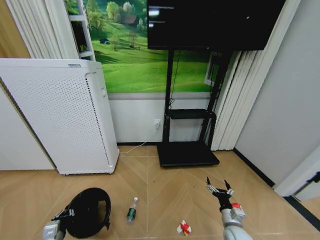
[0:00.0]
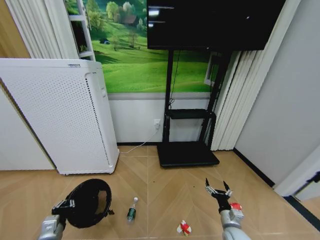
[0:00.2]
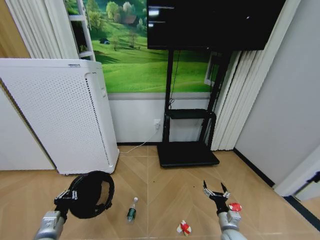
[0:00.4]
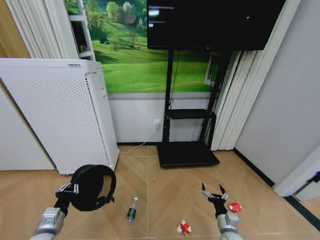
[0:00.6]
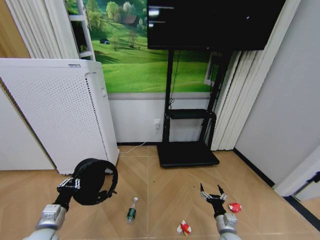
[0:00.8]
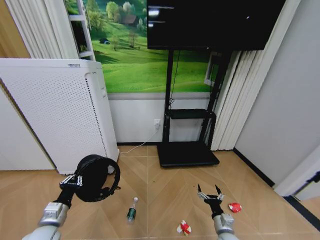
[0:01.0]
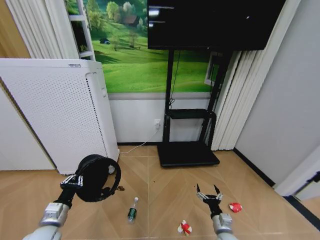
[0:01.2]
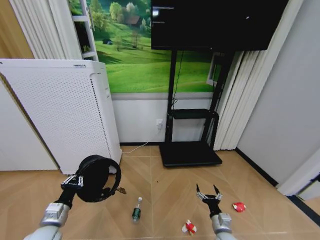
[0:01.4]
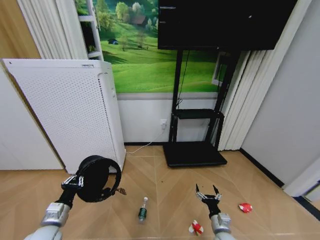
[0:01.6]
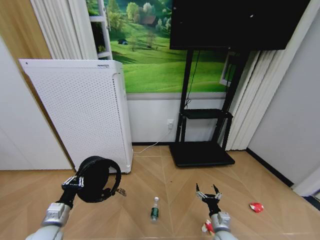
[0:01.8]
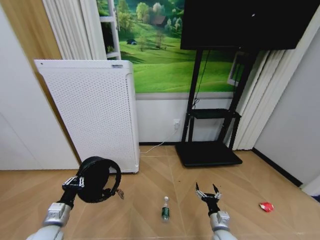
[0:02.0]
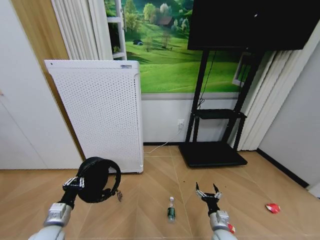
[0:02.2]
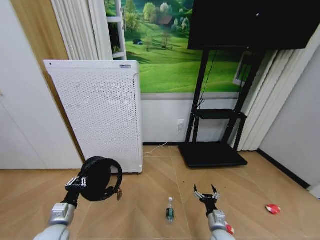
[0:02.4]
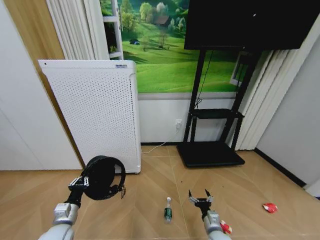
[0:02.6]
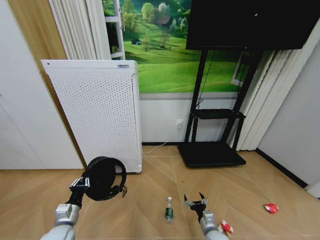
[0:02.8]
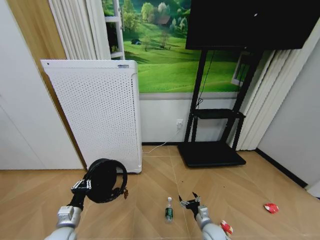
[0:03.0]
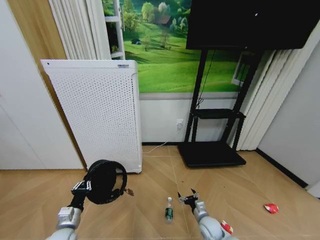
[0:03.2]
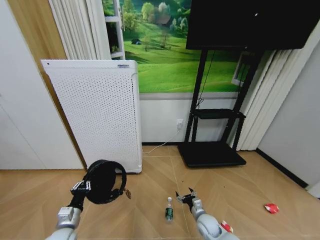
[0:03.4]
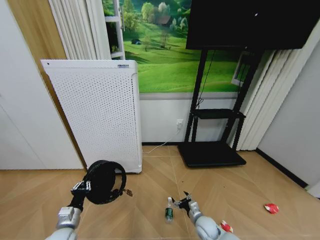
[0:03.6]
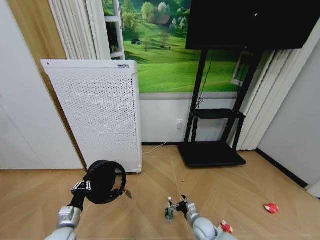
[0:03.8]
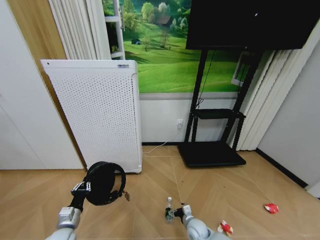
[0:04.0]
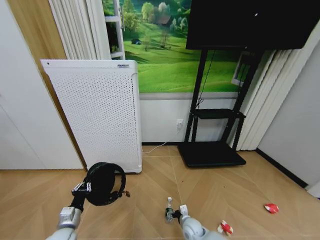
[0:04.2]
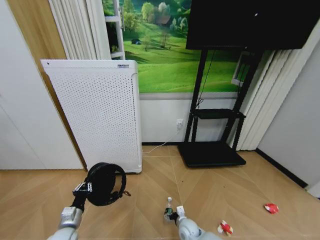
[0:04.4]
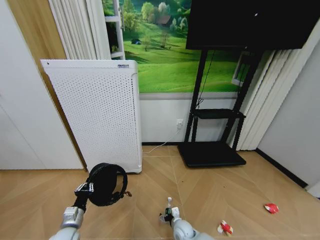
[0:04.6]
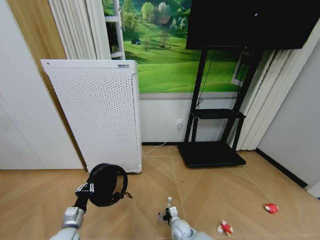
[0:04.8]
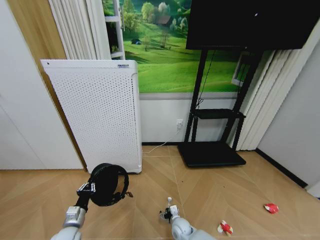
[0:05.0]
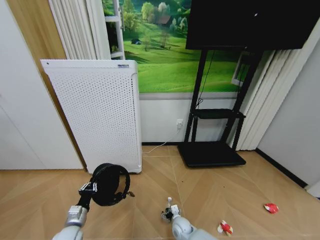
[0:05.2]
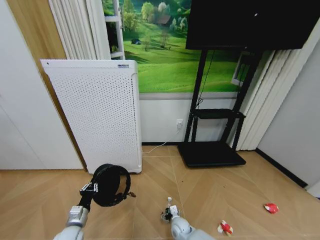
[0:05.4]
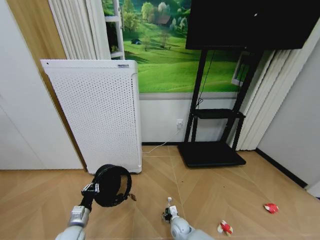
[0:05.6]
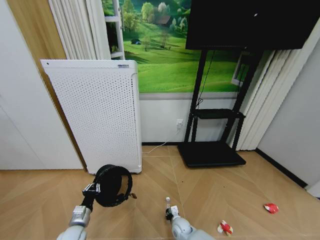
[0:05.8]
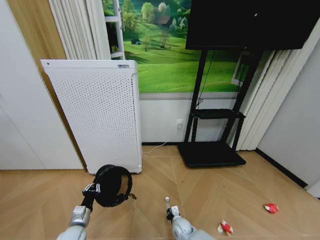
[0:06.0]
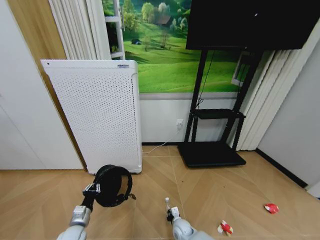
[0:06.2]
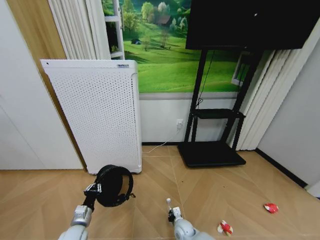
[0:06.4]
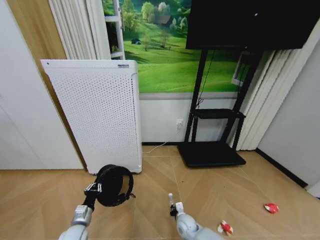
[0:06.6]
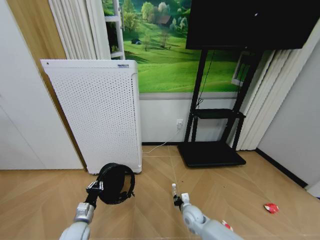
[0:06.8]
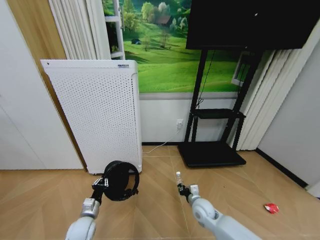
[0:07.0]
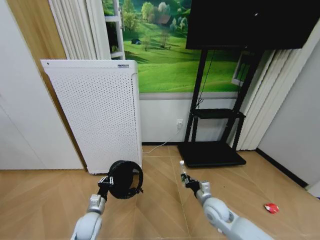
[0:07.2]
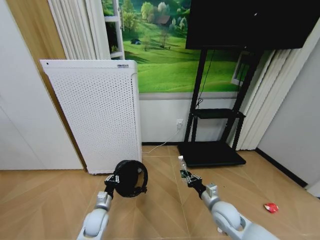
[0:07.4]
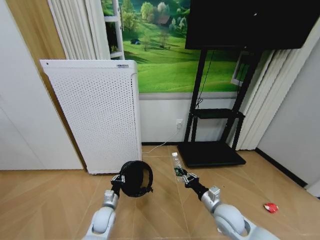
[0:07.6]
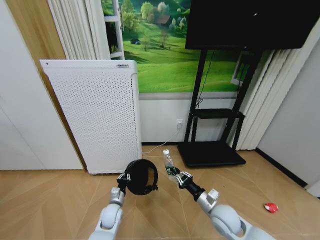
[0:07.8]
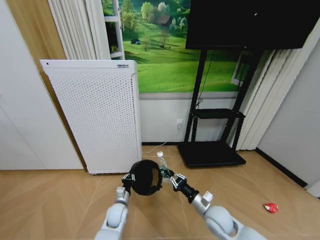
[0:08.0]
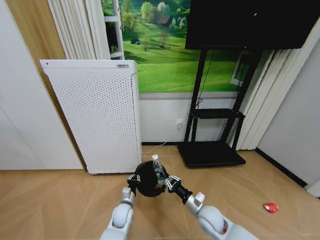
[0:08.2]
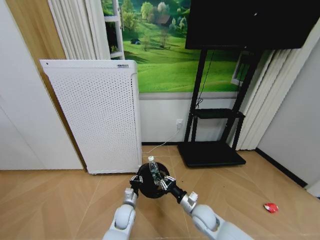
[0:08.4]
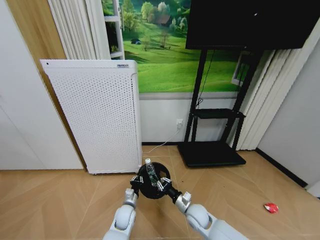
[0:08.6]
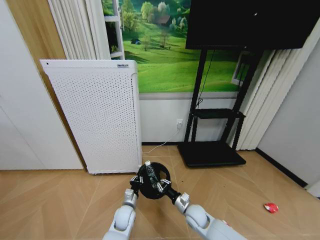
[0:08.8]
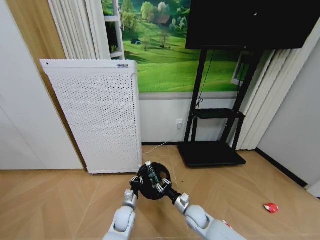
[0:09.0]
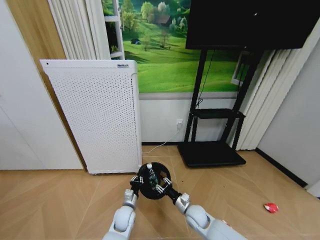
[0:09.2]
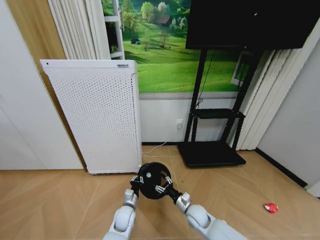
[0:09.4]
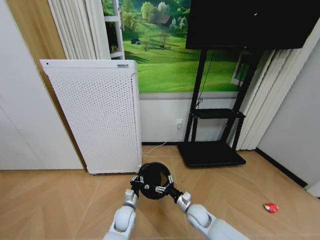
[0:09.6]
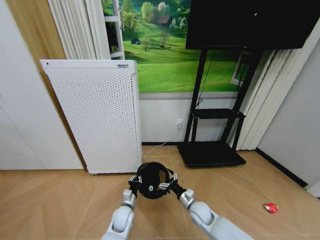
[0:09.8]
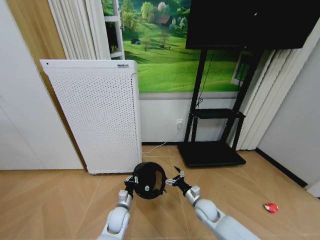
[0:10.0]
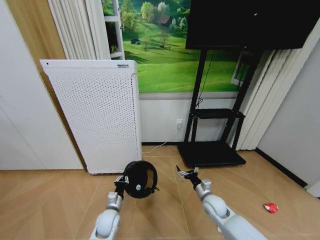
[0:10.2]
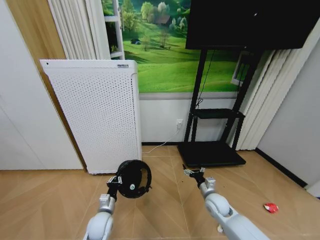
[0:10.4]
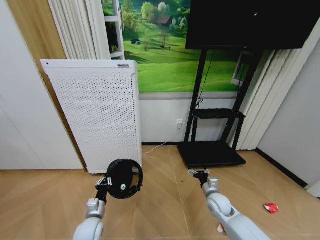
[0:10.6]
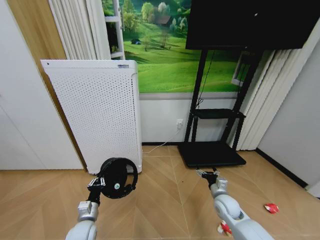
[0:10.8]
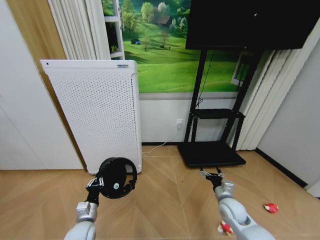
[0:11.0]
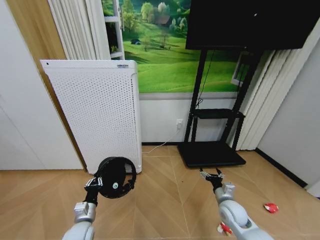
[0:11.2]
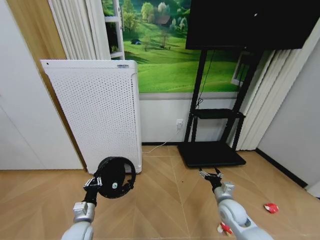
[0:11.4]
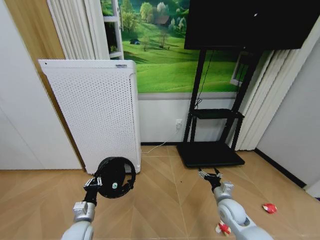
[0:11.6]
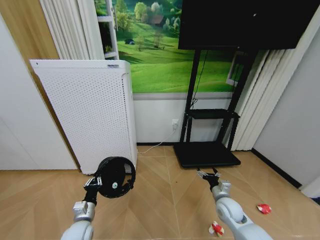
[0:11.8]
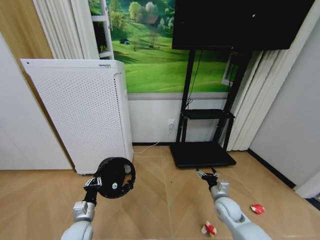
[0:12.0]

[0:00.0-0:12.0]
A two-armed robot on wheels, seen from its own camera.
Task of the whole recording: Pick up the trash bin and place the garbage on the floor into it.
0.0 to 1.6 s: The left gripper shifts some 5 cm upward. Meanwhile the right gripper ends up approximately 5 cm from where it was.
1.6 to 3.0 s: The left gripper changes place by approximately 5 cm; the right gripper changes place by about 5 cm.
3.0 to 4.4 s: The right gripper goes about 10 cm to the left.
4.4 to 6.0 s: The right gripper closes its fingers.
6.0 to 7.6 s: The right gripper travels upward and to the right by approximately 25 cm; the left gripper moves to the right and forward, some 15 cm.
7.6 to 9.0 s: The right gripper goes approximately 15 cm downward and to the left; the left gripper travels to the right by some 10 cm.
9.0 to 10.4 s: The right gripper travels to the right and upward by about 10 cm, and opens up. The left gripper moves to the left, roughly 10 cm.
10.4 to 12.0 s: The left gripper moves to the left, some 5 cm.

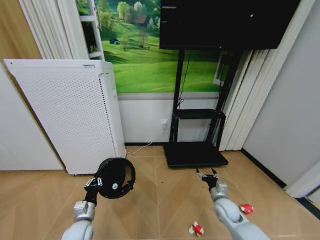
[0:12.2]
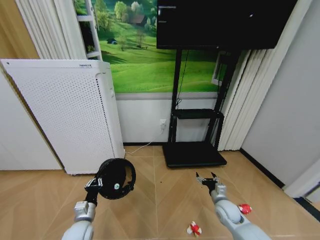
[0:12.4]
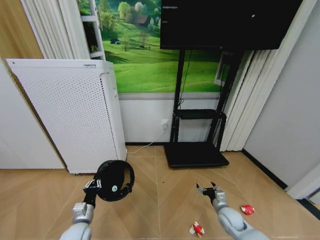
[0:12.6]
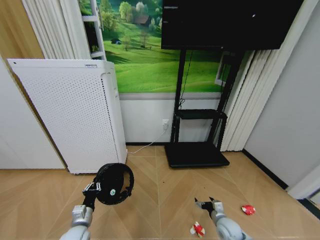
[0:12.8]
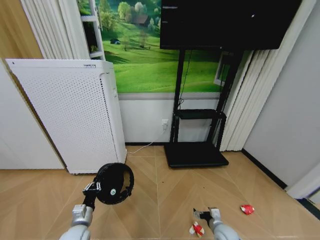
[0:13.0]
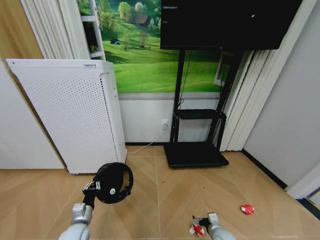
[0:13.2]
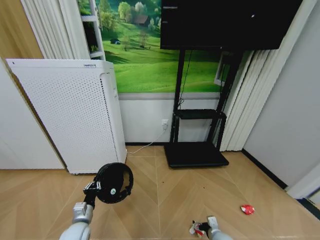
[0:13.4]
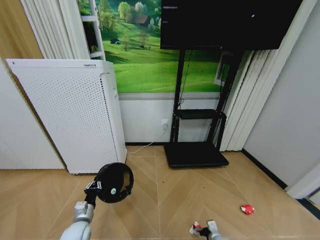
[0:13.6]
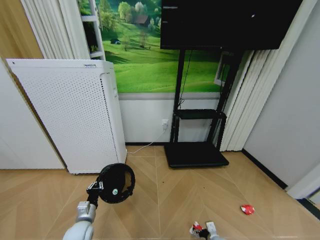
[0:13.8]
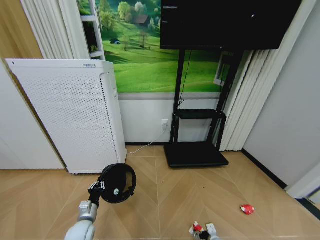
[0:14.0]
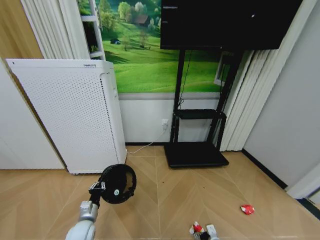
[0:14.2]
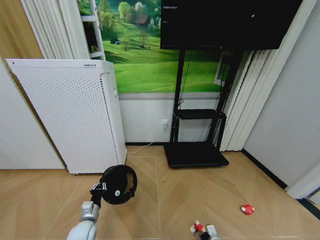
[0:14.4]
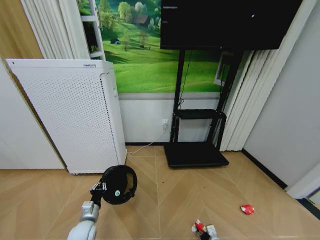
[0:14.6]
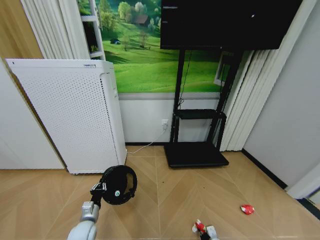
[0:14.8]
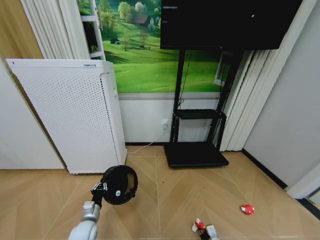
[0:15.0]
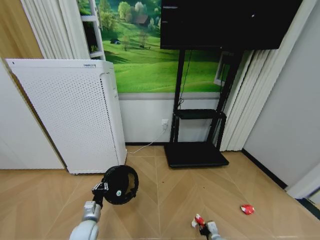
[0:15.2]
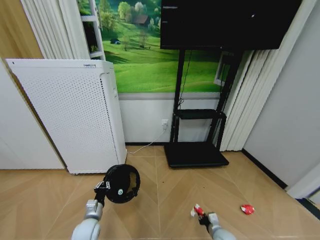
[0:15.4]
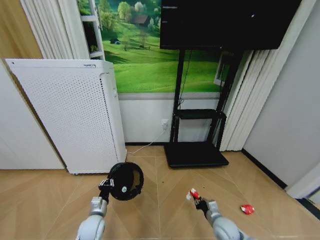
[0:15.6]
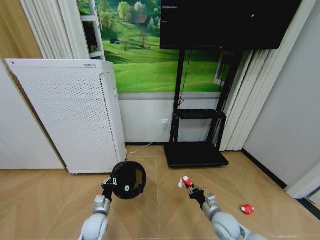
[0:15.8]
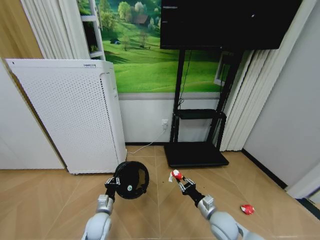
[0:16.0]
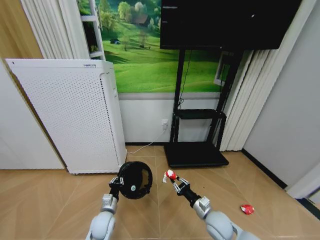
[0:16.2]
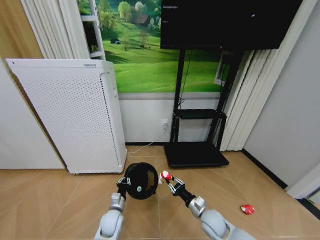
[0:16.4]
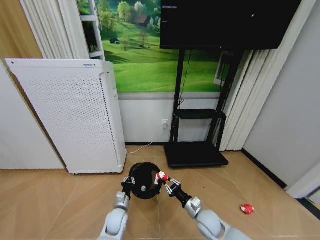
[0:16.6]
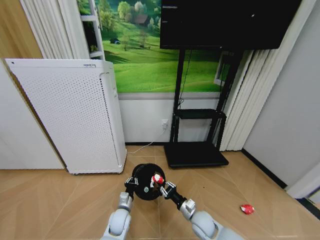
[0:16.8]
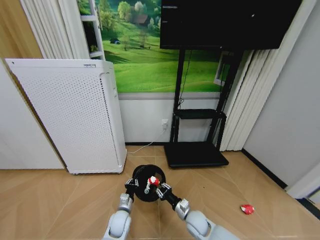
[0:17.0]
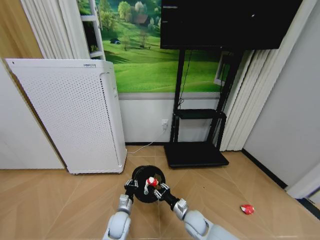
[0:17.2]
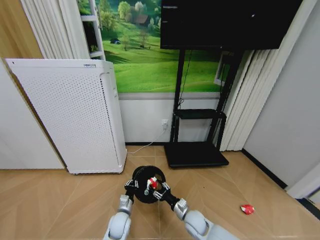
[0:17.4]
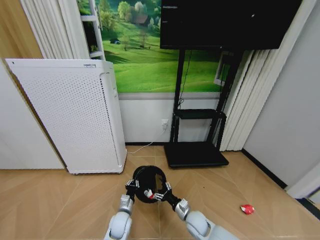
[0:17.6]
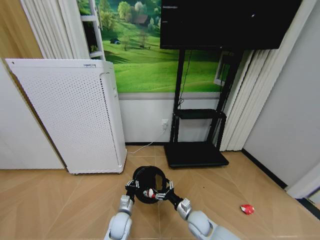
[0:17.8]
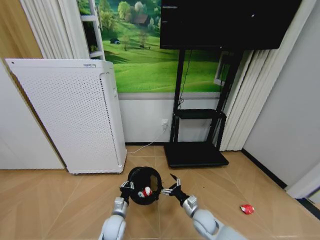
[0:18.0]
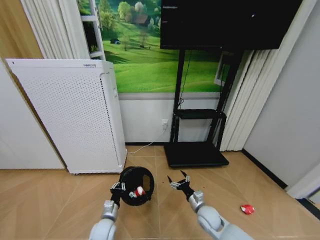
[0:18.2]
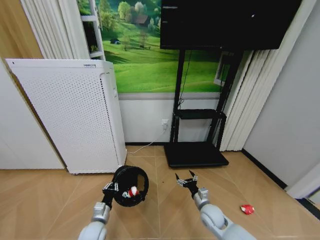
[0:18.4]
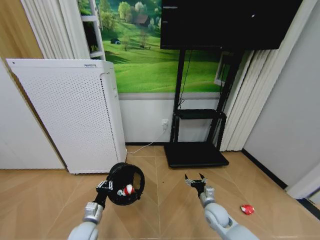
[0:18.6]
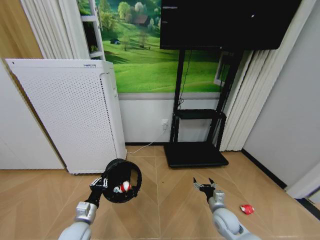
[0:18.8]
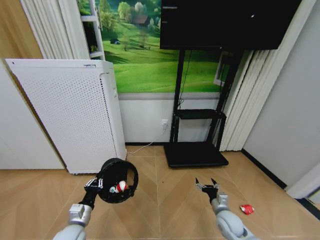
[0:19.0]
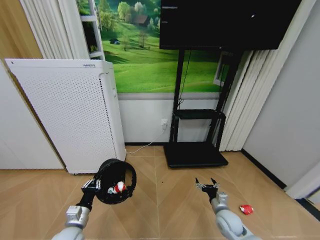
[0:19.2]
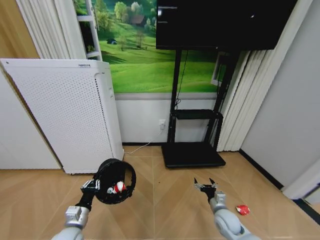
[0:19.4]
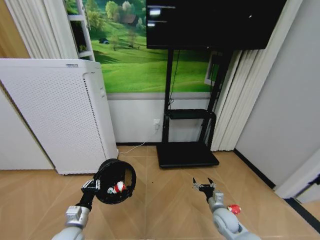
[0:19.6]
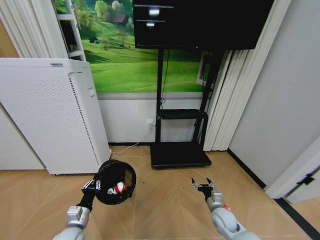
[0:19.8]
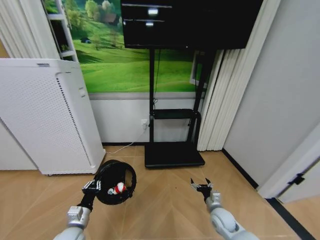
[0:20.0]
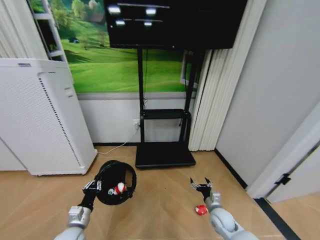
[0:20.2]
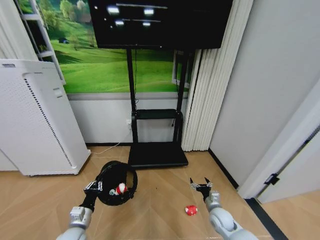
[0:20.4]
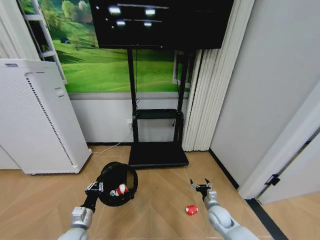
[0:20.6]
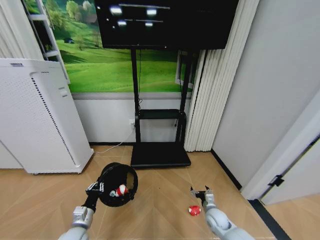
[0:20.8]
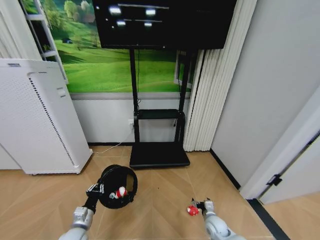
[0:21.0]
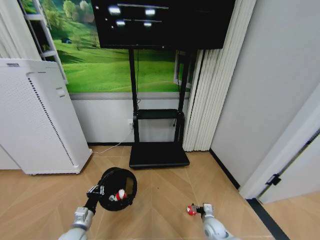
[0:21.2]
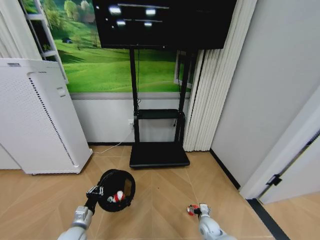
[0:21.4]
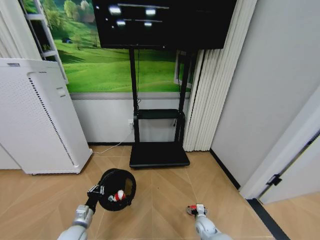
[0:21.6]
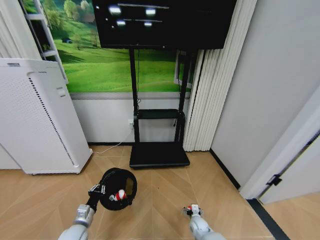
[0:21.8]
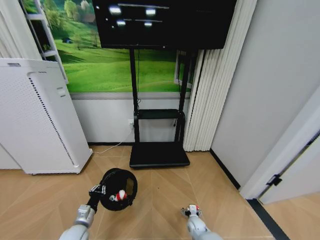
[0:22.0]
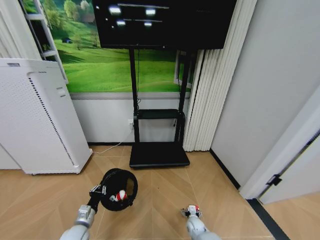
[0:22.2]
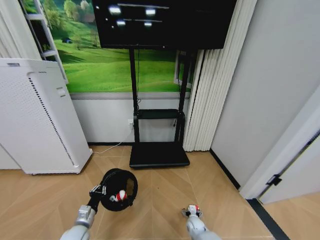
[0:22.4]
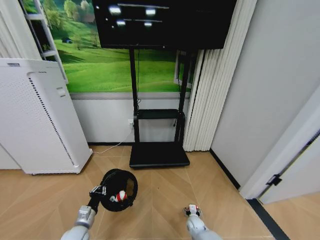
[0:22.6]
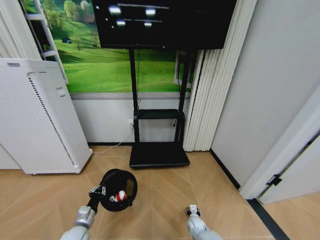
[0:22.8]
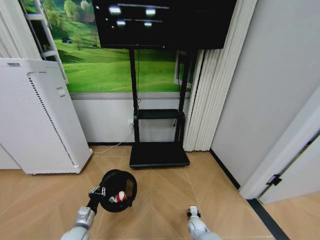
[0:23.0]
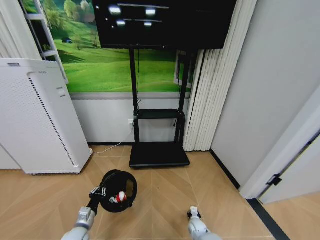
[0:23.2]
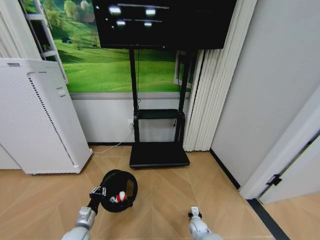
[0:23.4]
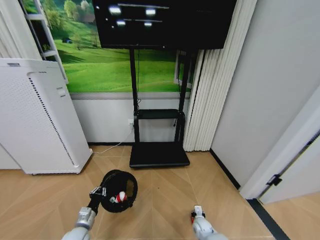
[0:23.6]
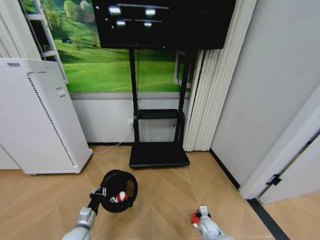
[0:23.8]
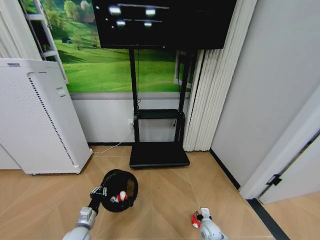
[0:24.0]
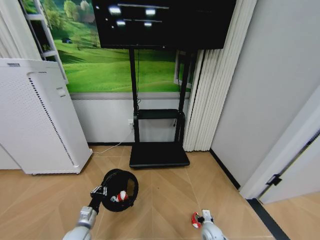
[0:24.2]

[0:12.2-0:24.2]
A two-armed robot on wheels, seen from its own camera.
Task of the whole recording: Pick up the trash bin and place the garbage on the floor into it.
12.2 to 13.8 s: The right gripper goes roughly 20 cm downward and backward.
13.8 to 15.2 s: The right gripper closes its fingers.
15.2 to 16.6 s: The right gripper shifts roughly 15 cm upward, to the left and forward. The left gripper moves to the right and forward, some 10 cm.
16.6 to 18.2 s: The right gripper opens. Meanwhile the left gripper ends up roughly 5 cm from where it was.
18.2 to 19.8 s: The left gripper goes about 10 cm to the left and upward; the right gripper moves to the right, some 5 cm.
19.8 to 21.2 s: The right gripper is displaced downward by roughly 10 cm.
21.2 to 22.6 s: The right gripper travels downward and to the left by about 10 cm.
22.6 to 24.2 s: The right gripper moves upward and backward, roughly 10 cm, and closes, then opens again.
